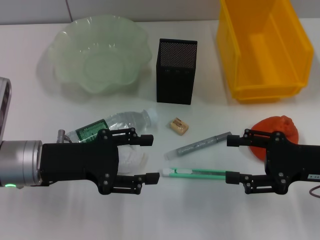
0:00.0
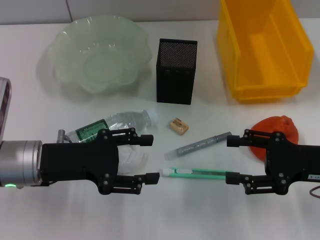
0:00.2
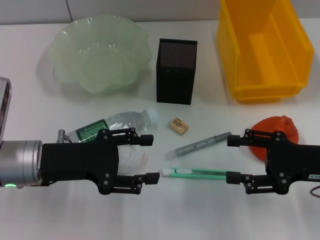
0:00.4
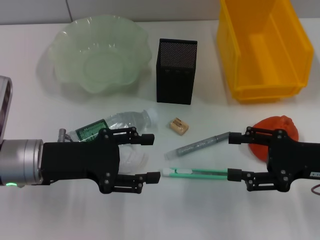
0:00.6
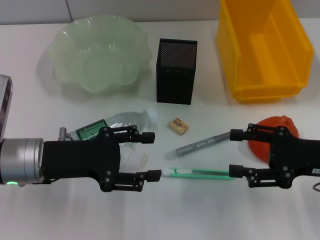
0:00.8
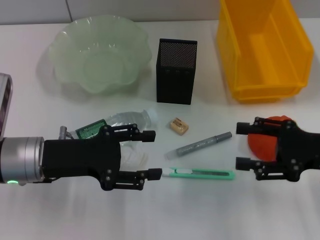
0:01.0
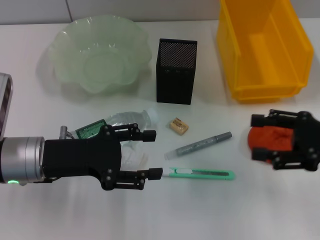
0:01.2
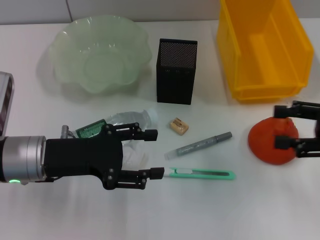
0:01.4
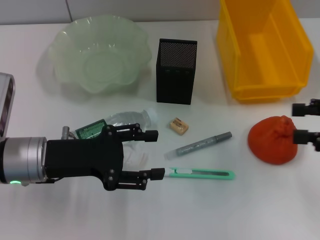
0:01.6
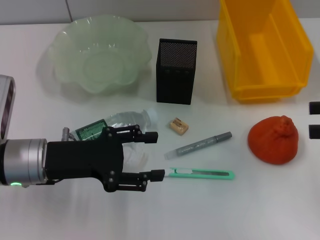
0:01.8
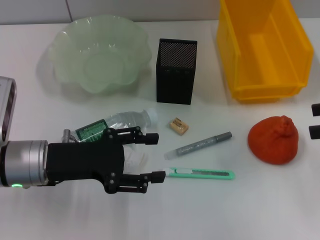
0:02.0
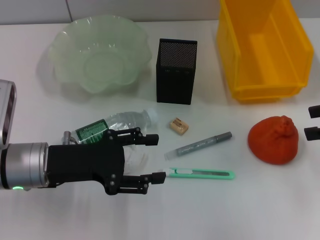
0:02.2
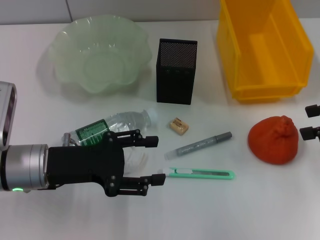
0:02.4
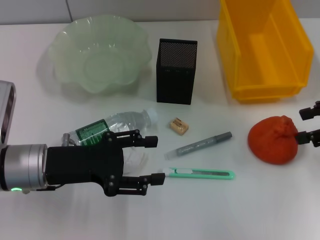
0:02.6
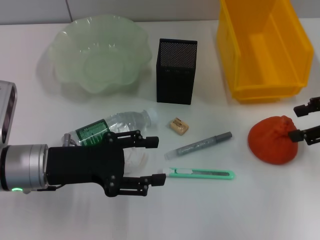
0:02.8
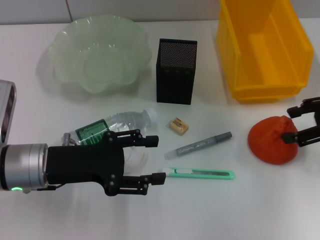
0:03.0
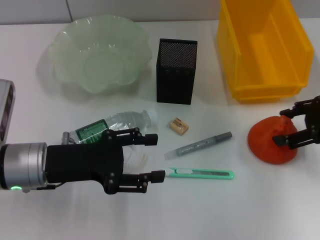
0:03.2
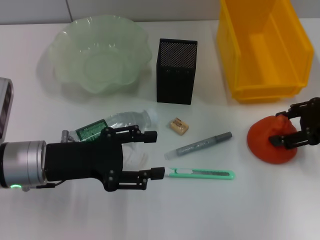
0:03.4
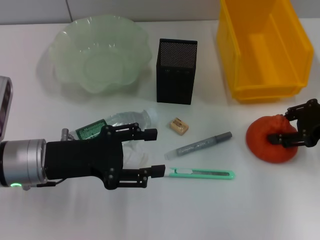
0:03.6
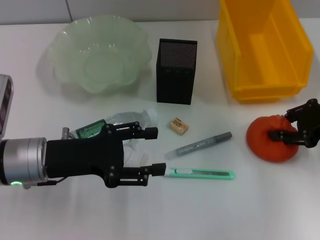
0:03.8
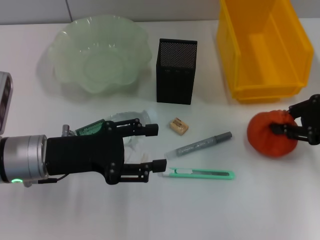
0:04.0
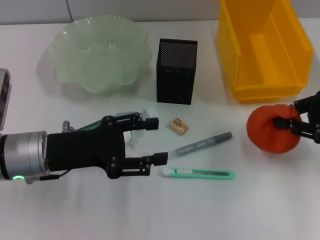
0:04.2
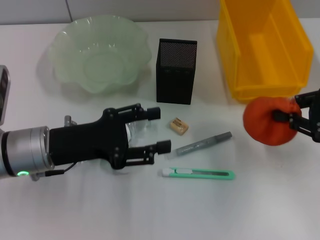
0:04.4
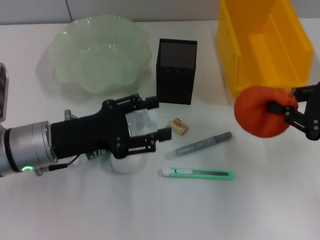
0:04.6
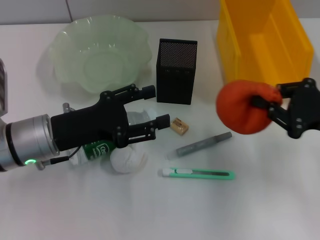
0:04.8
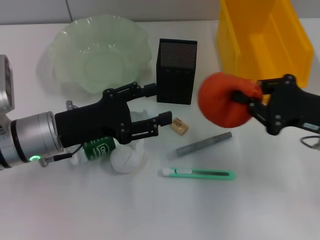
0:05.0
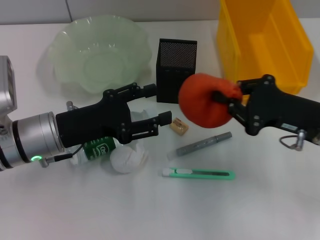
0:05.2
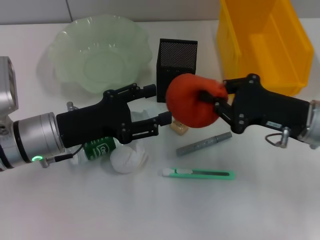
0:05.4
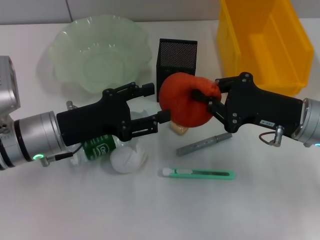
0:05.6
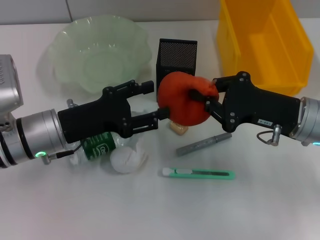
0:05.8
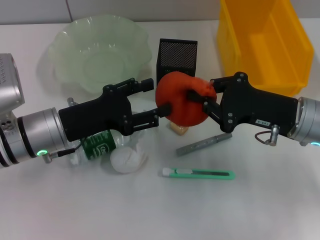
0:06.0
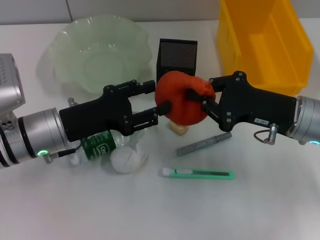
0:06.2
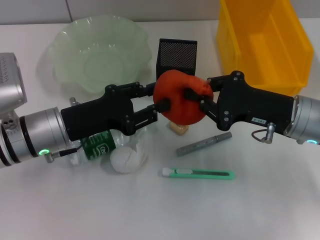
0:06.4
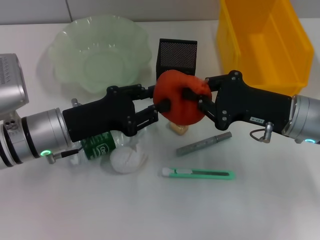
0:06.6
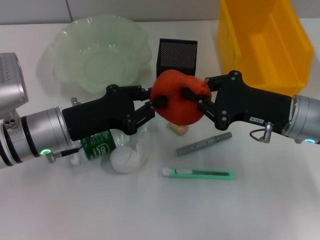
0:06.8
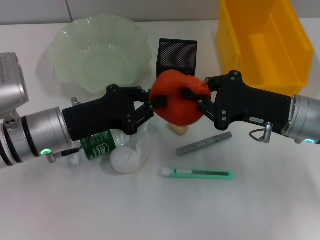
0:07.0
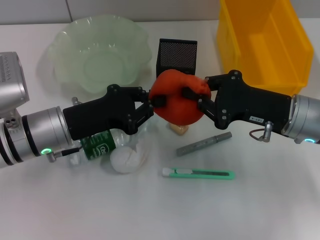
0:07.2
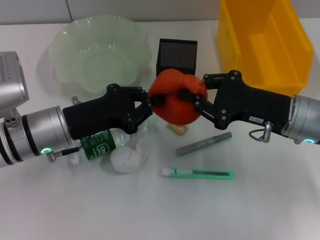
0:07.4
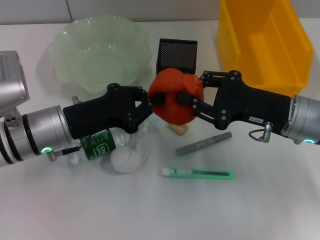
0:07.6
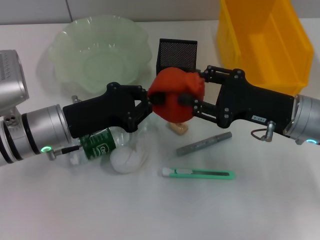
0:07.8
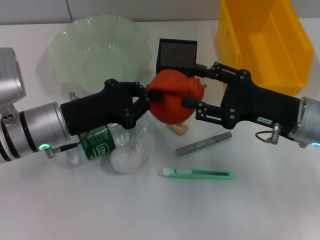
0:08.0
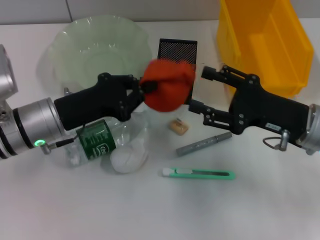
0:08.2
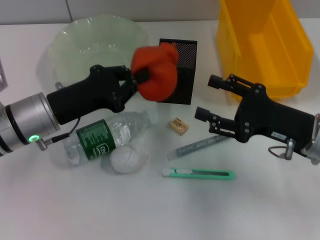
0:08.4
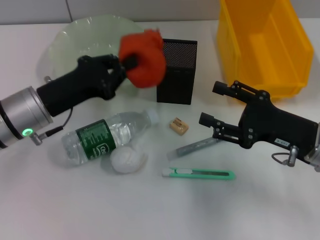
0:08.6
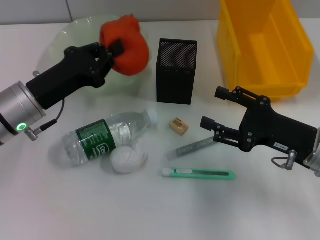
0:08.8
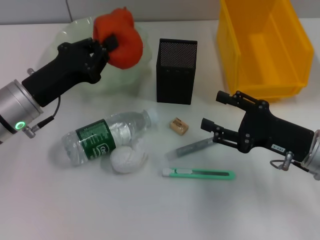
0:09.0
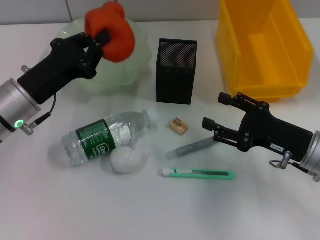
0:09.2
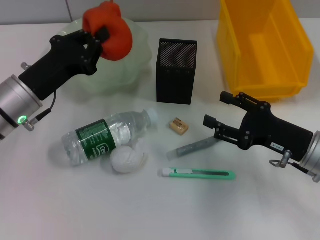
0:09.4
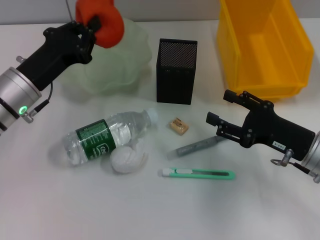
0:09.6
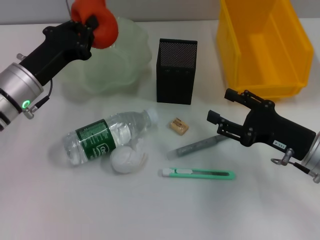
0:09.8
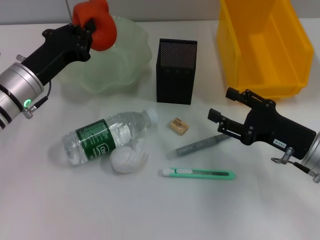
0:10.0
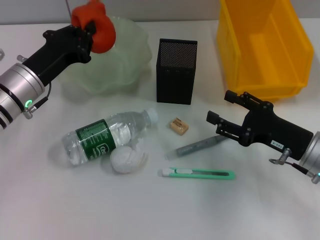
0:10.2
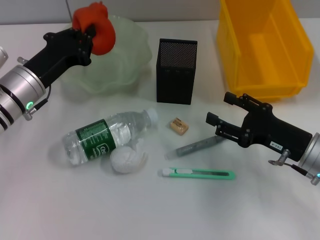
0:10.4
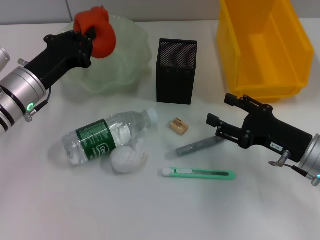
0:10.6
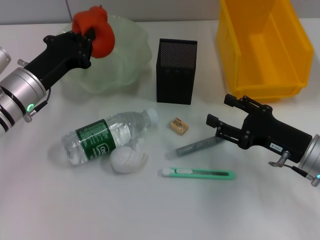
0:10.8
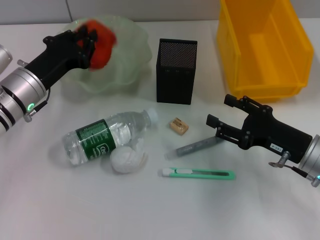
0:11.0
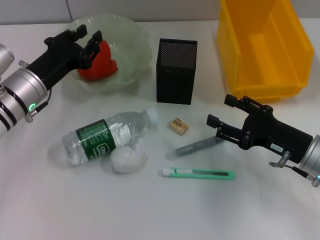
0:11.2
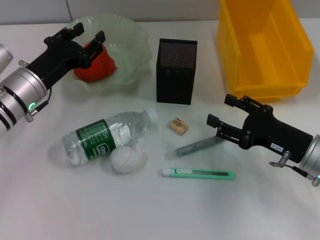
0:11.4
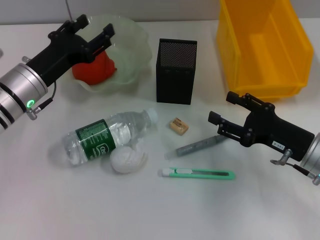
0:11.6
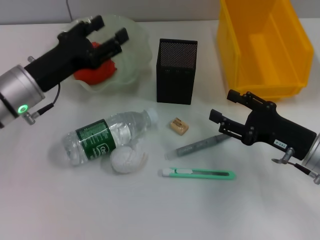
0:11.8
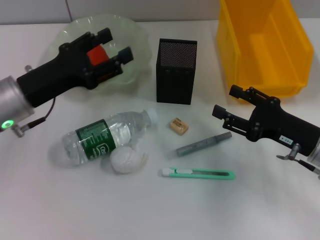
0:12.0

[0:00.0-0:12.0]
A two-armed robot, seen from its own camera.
Step, 0:00.0 to 0:03.8: Grab the orange with the right hand.
Step, 0:04.0 to 0:08.0: Pass the orange from the right hand to the left hand.
Step, 0:08.2 to 0:11.8: Place the orange into the fruit bowl with the left hand.
0:00.0 to 0:01.6: The right gripper heads to the right and upward, covering some 10 cm.
0:01.6 to 0:03.0: The right gripper travels forward by about 5 cm.
0:03.0 to 0:04.4: The right gripper closes.
0:04.4 to 0:06.0: The right gripper travels to the left by approximately 10 cm.
0:06.0 to 0:07.6: The left gripper closes up.
0:07.6 to 0:09.0: The right gripper changes place by about 5 cm, and opens up.
0:10.4 to 0:12.0: The left gripper opens up.

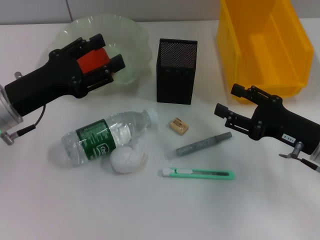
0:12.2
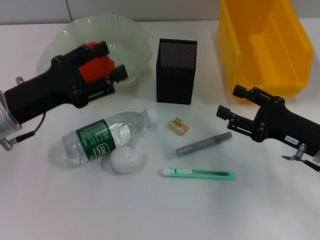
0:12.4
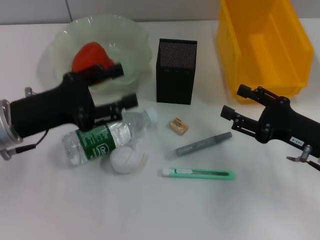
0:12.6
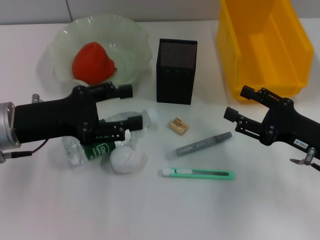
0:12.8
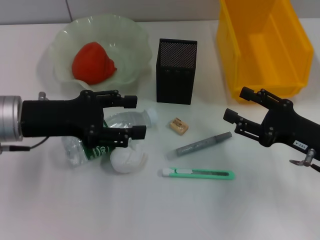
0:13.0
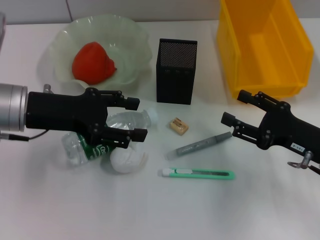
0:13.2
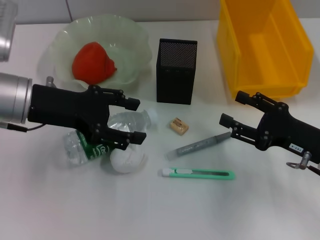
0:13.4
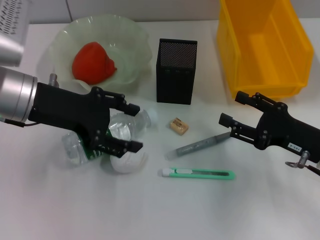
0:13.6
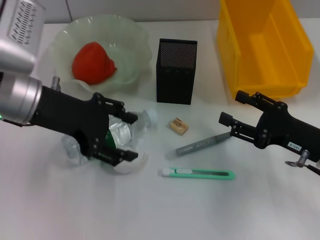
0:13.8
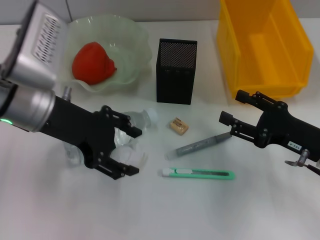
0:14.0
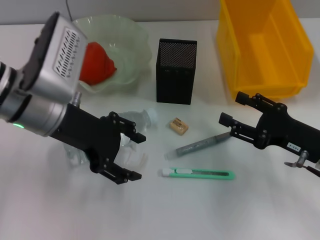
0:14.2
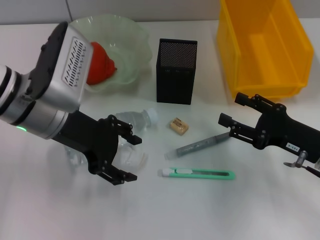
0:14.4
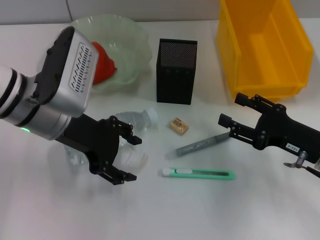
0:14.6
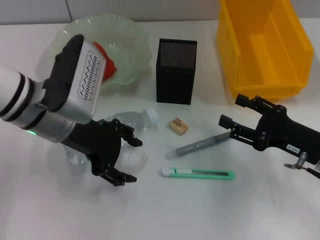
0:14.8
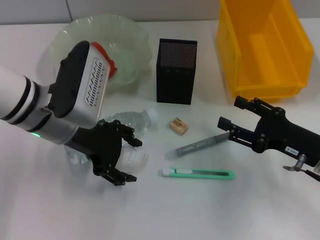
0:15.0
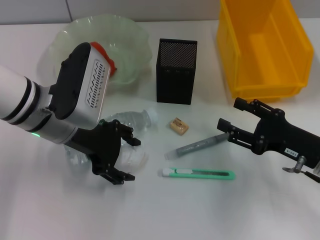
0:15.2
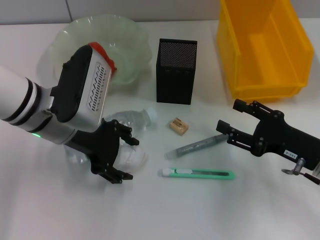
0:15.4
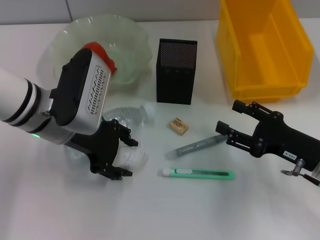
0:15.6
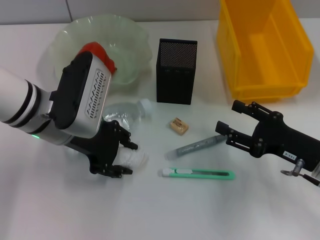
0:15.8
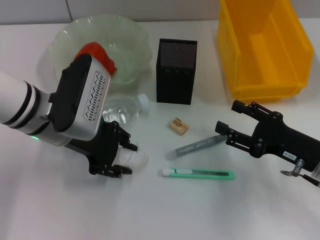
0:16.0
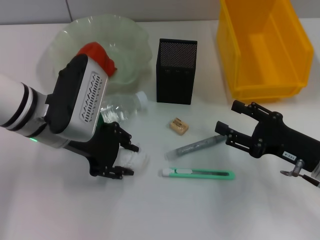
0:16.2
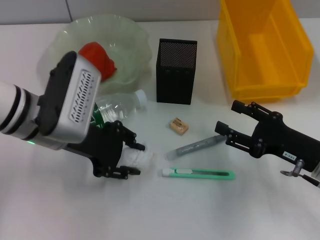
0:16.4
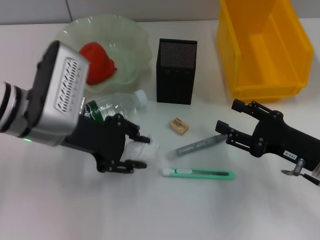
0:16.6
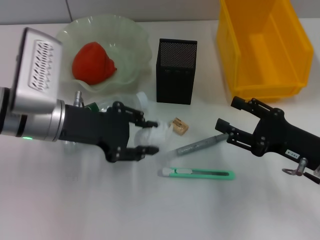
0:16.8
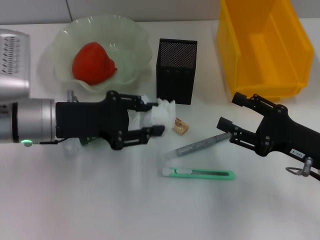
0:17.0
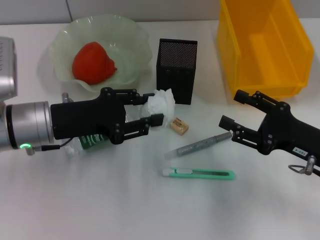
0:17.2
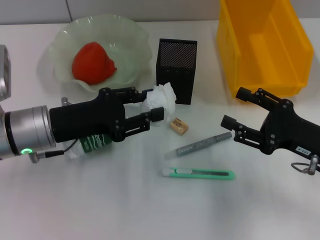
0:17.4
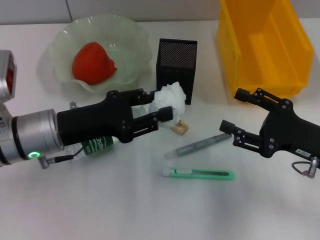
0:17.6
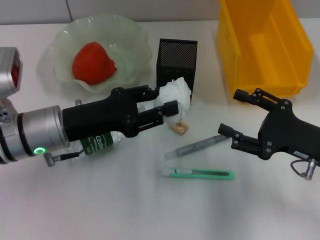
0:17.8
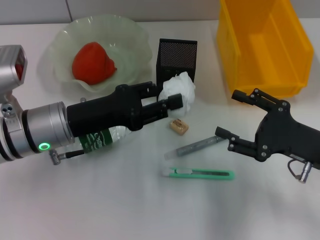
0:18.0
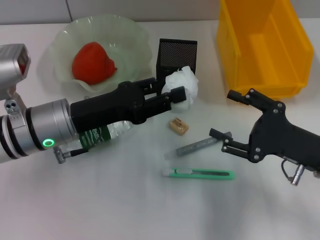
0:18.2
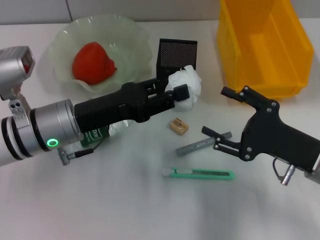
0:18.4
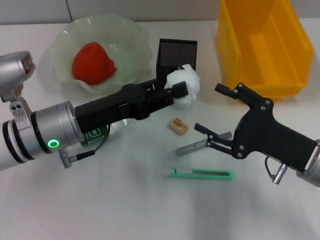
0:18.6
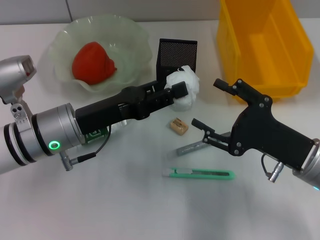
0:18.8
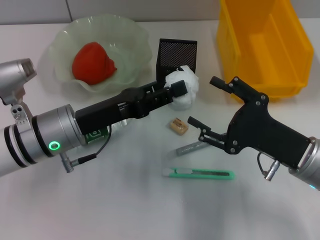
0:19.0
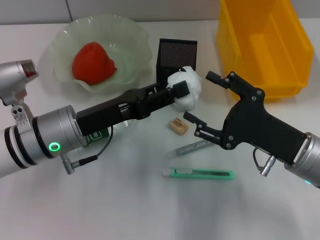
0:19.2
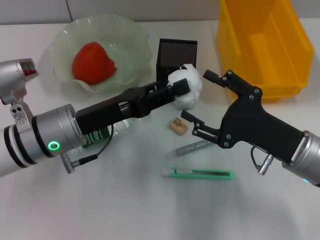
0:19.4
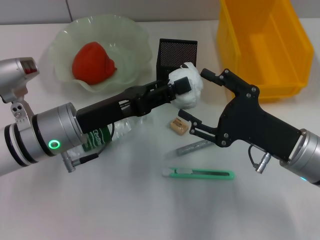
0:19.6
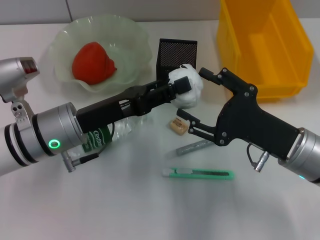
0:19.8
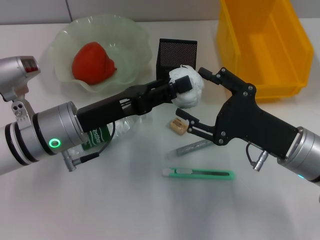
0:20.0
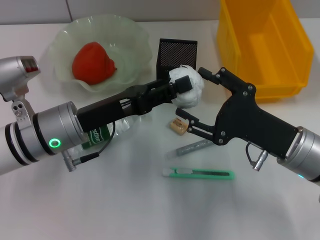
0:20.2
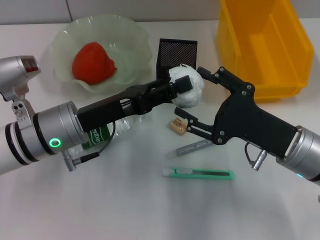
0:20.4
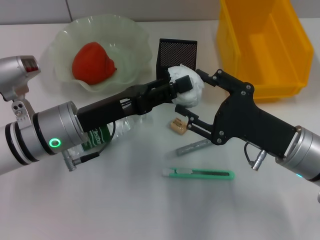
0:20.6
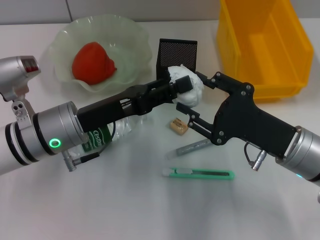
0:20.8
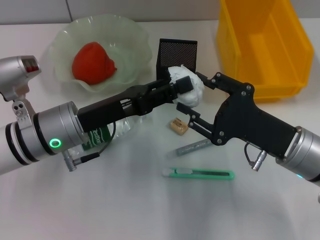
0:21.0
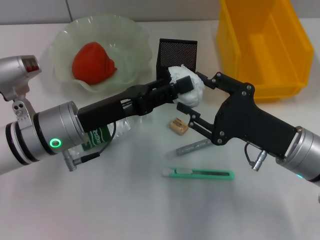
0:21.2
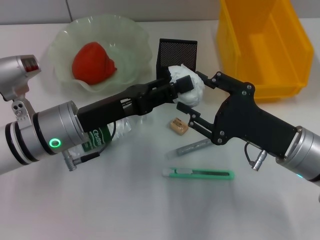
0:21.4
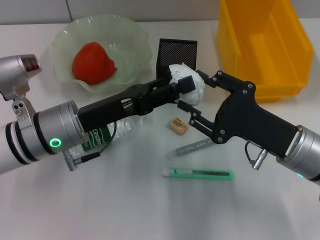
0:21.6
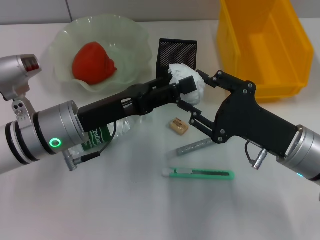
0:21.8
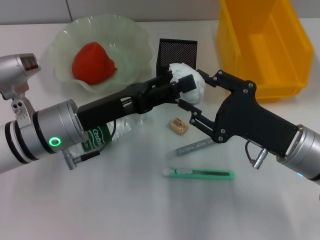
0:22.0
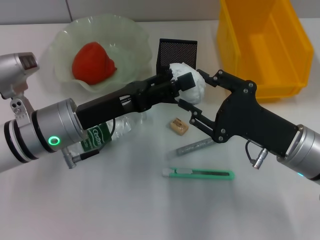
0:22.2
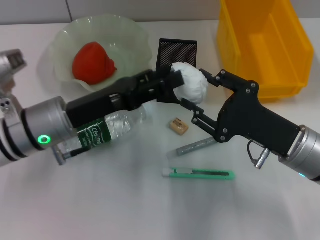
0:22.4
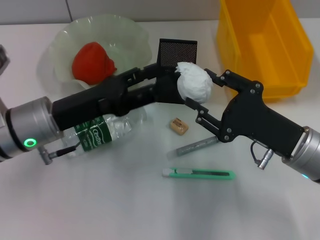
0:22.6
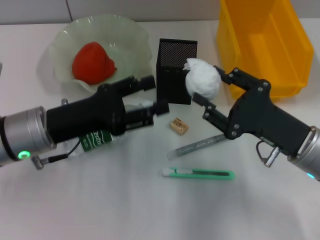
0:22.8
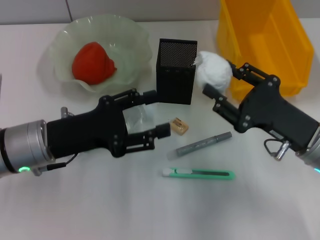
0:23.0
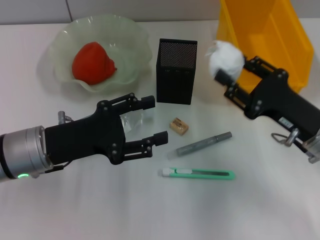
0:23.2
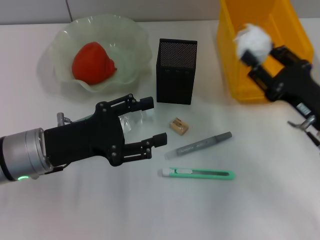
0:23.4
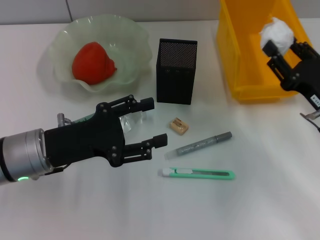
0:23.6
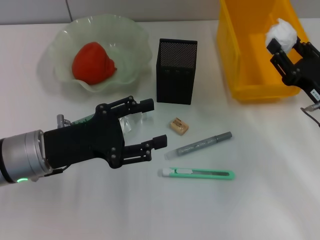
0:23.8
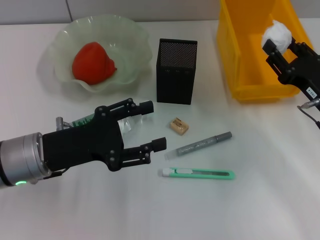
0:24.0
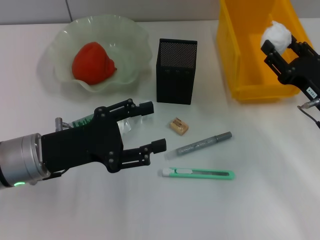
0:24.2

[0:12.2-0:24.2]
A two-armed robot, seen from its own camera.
Step, 0:12.2 to 0:16.6: Grab the paper ball with the left hand.
Step, 0:16.8 to 0:22.4: Pass the paper ball from the left hand to the right hand.
0:12.2 to 0:13.8: The left gripper shifts roughly 5 cm upward.
0:13.8 to 0:15.2: The left gripper changes place by some 5 cm.
0:15.2 to 0:16.6: The left gripper closes its fingers.
0:18.2 to 0:19.8: The right gripper ends up roughly 5 cm from where it was.
0:19.8 to 0:21.2: Neither gripper changes place.
0:21.2 to 0:22.6: The left gripper opens up.
0:22.6 to 0:24.2: The right gripper heads to the right, covering some 5 cm.
